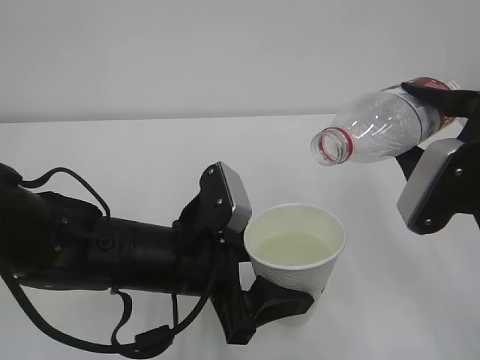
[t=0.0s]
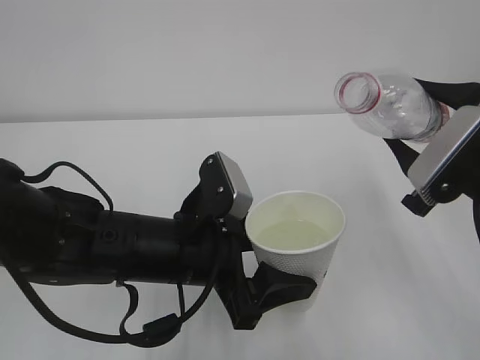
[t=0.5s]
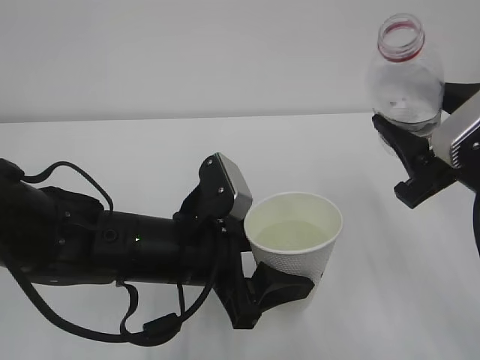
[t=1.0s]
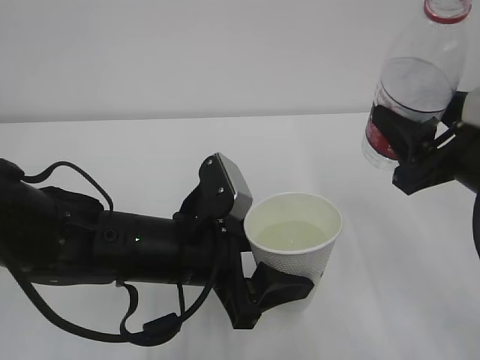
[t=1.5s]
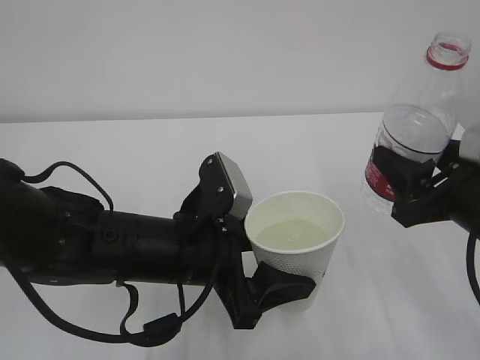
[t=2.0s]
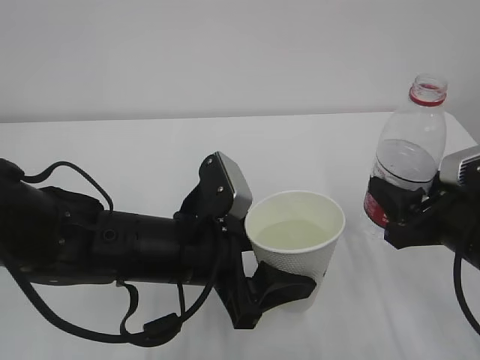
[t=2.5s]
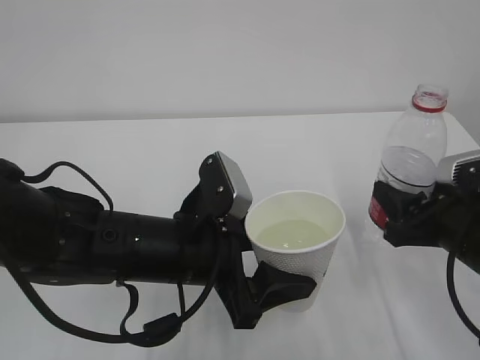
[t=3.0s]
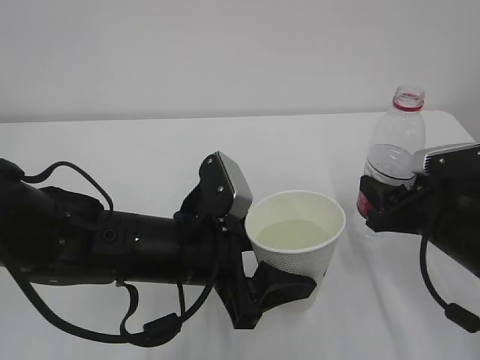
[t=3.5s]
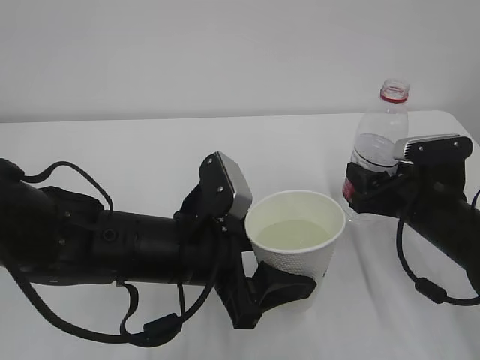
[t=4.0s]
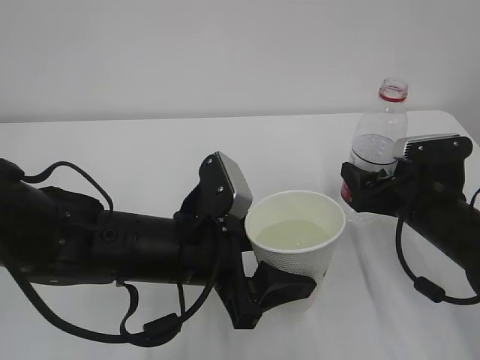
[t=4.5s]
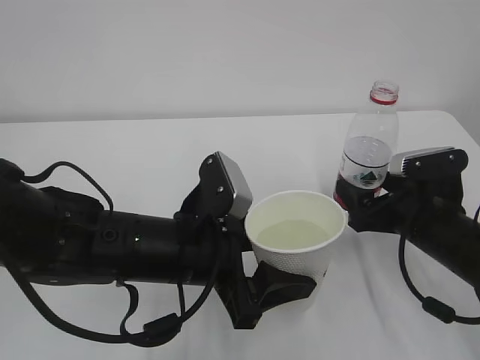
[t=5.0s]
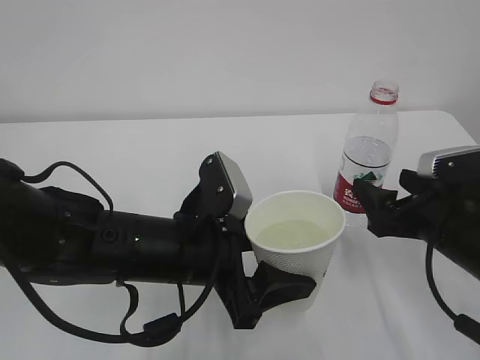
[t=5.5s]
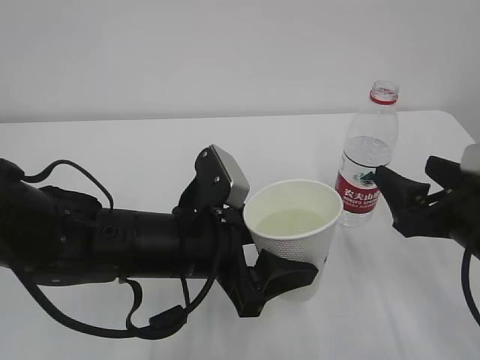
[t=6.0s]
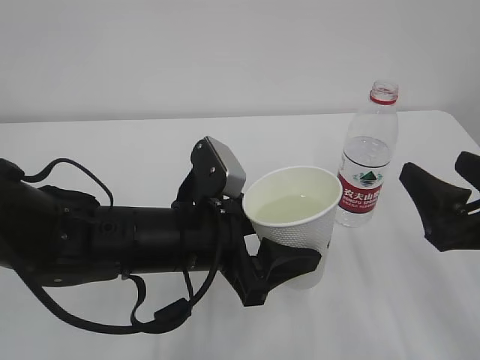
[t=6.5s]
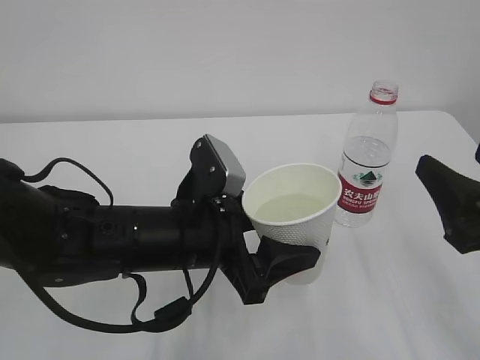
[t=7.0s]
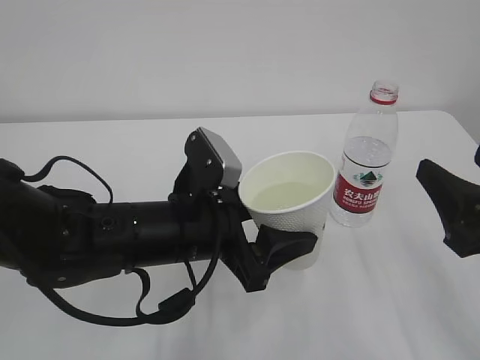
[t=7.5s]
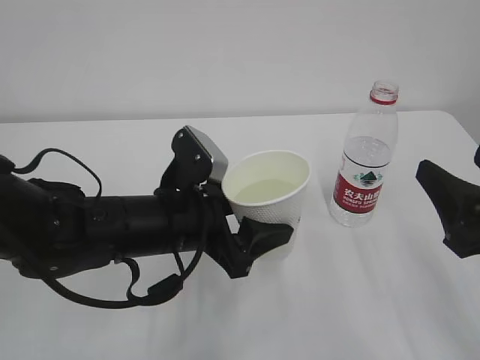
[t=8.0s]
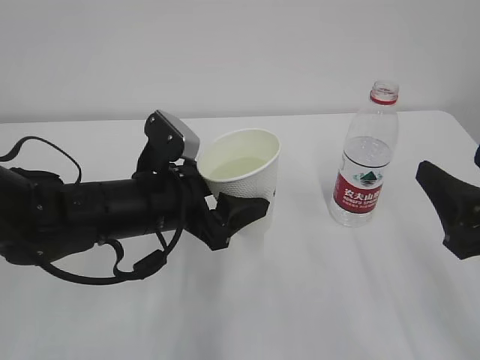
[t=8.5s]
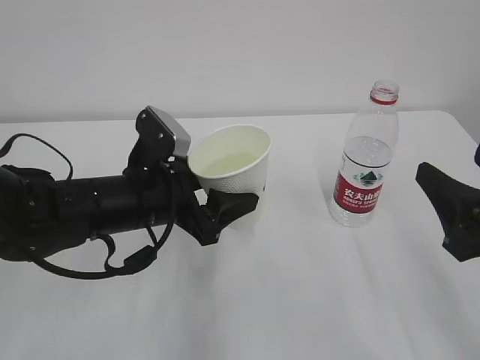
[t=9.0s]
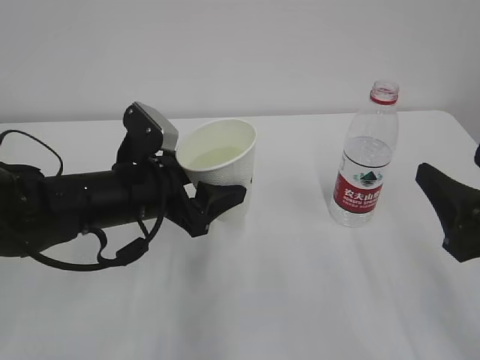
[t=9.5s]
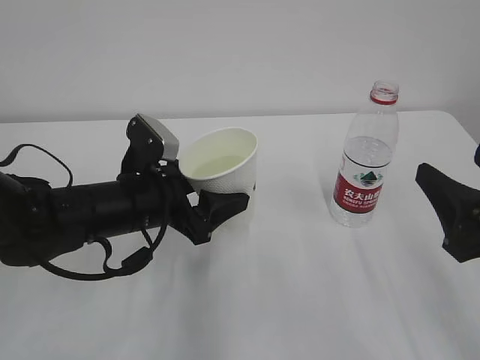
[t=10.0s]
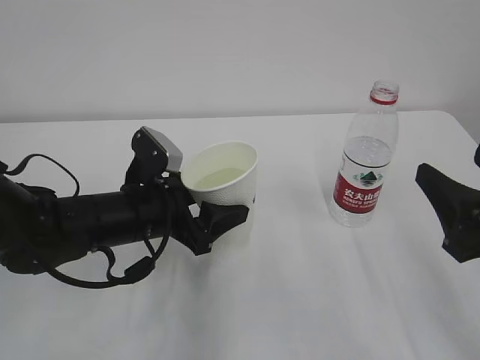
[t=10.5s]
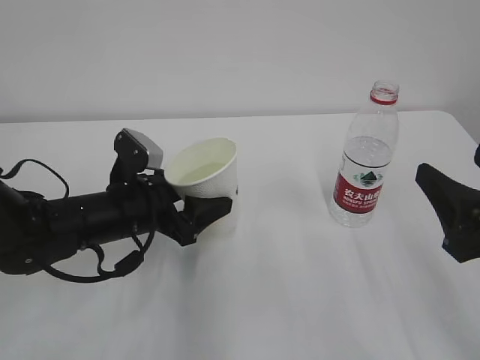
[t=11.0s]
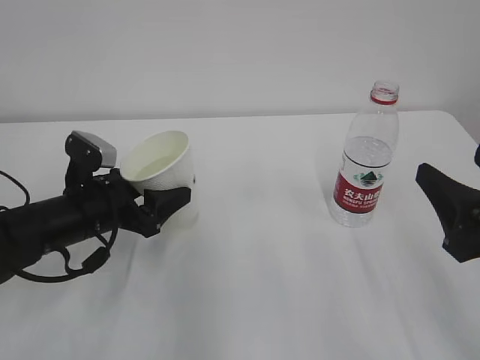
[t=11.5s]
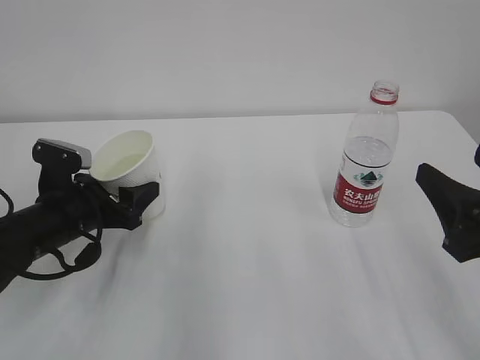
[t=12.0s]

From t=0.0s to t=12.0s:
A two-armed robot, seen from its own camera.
From t=2.0s to t=4.0s: The right gripper heads downward and forward, covering roughly 10 cm.
From t=4.0s to t=6.0s: The right gripper moves backward and upward, roughly 10 cm, and opens.
From t=6.0s to t=8.0s: The right gripper goes roughly 5 cm backward.
From t=8.0s to t=10.0s: The left gripper shifts by some 5 cm.
From t=10.0s to t=12.0s: The left gripper travels to the left by about 10 cm.

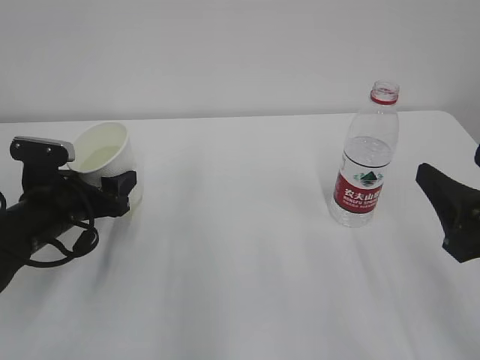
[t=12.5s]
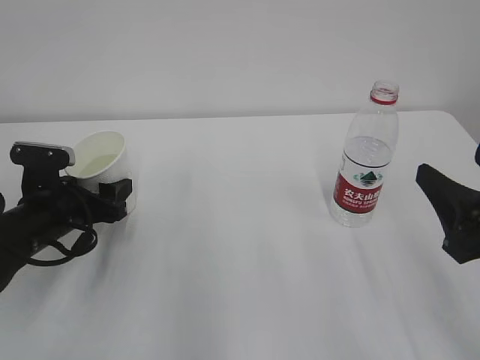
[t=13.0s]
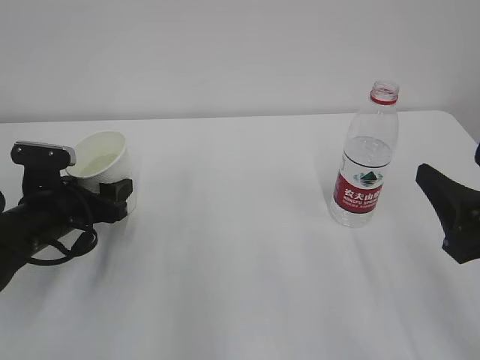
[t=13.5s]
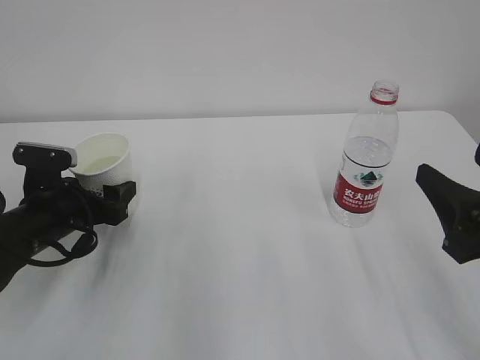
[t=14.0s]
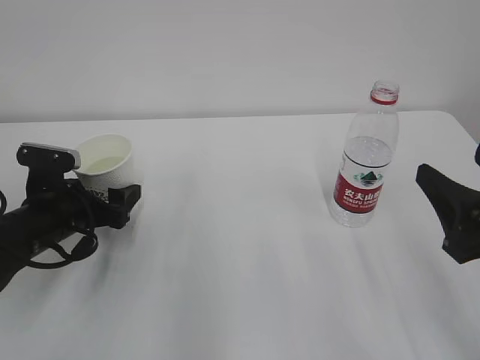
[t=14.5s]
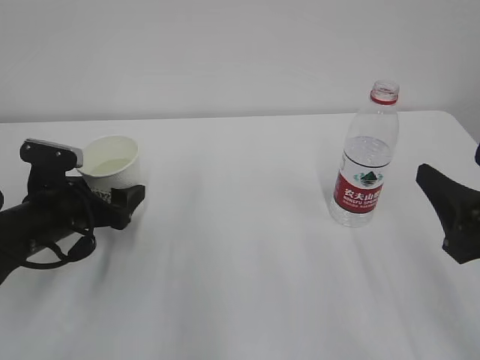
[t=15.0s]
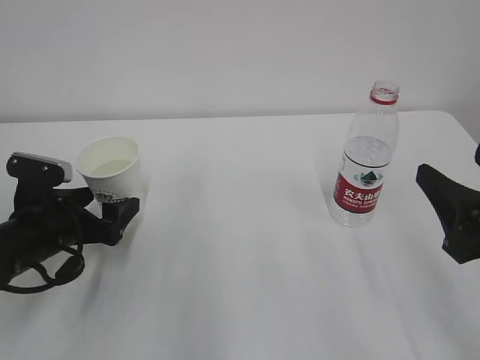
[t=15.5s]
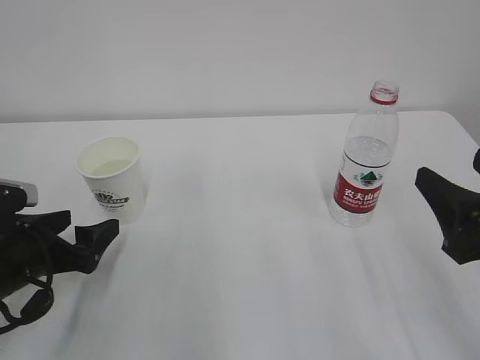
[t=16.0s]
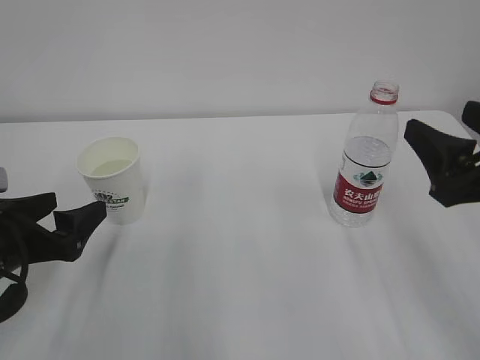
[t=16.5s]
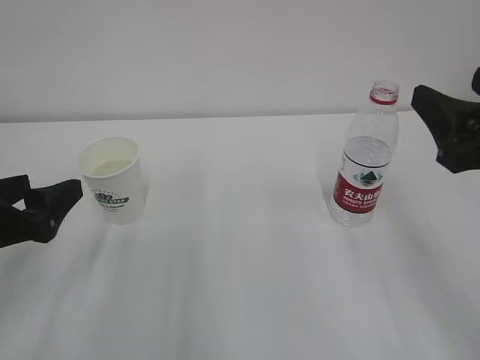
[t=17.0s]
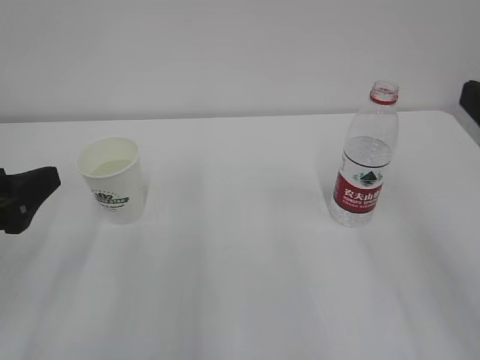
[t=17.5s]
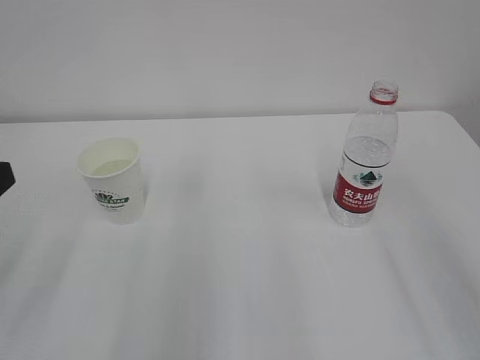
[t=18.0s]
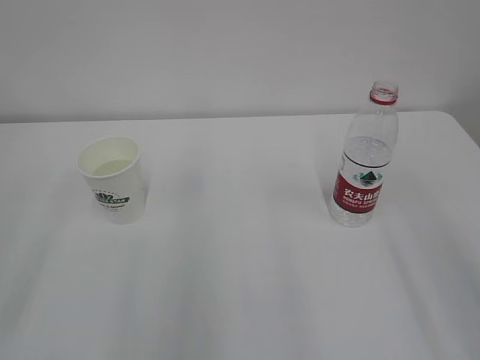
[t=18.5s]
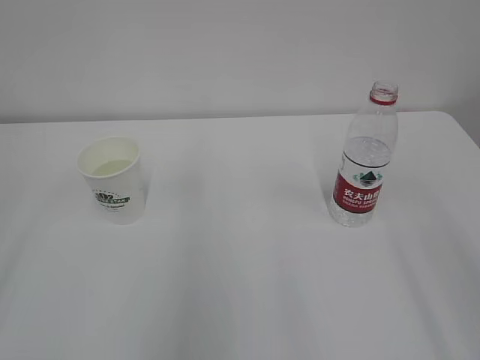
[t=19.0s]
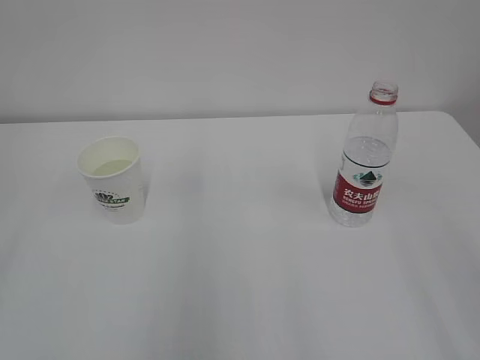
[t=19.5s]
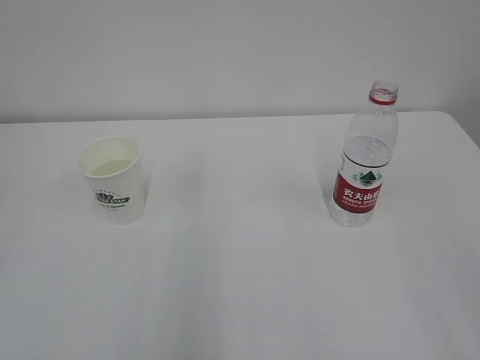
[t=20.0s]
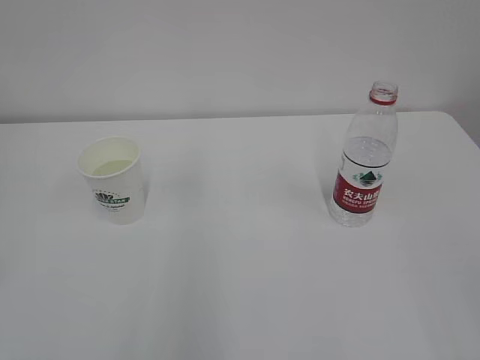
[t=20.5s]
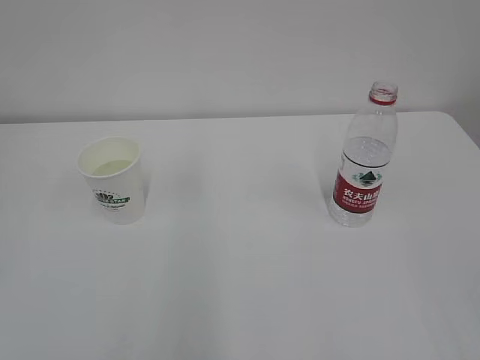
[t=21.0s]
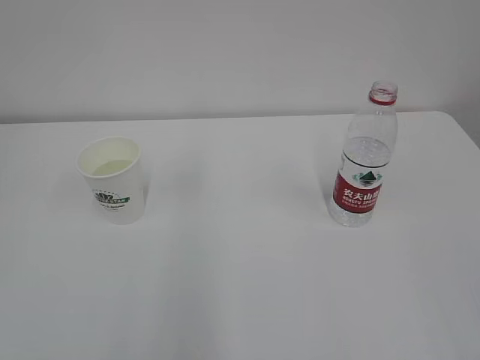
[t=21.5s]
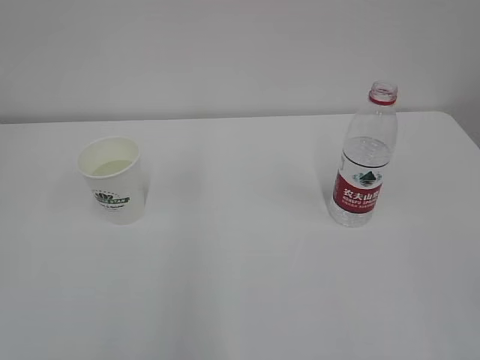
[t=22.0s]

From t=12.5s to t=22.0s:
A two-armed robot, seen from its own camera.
From t=12.5s to t=14.5s: The left gripper opens its fingers.
From t=14.5s to t=16.5s: The left gripper is displaced backward by some 10 cm.
From t=16.5s to t=18.0s: Both grippers move upward and backward, roughly 15 cm.

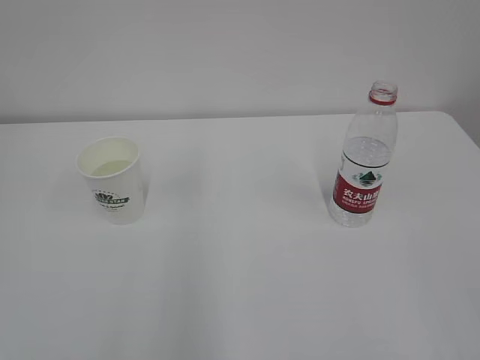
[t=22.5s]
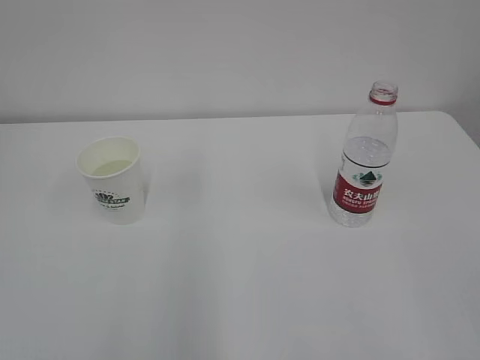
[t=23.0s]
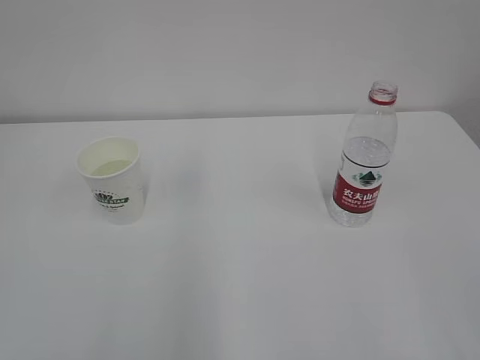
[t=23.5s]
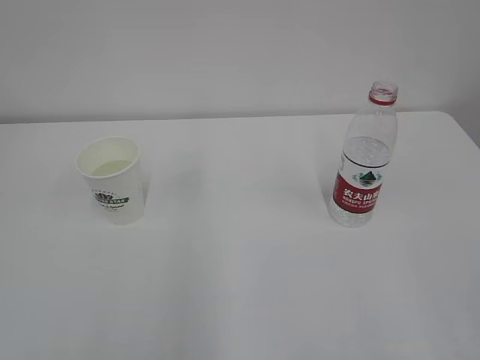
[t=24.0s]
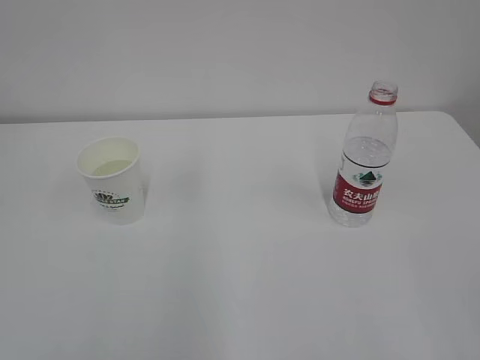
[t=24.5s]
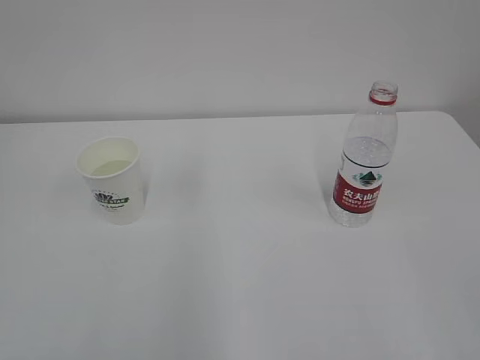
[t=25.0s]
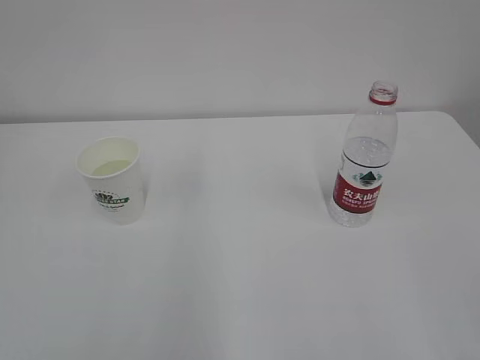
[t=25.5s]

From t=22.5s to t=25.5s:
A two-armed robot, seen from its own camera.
From t=24.0s to t=25.5s: The two grippers keep their place.
